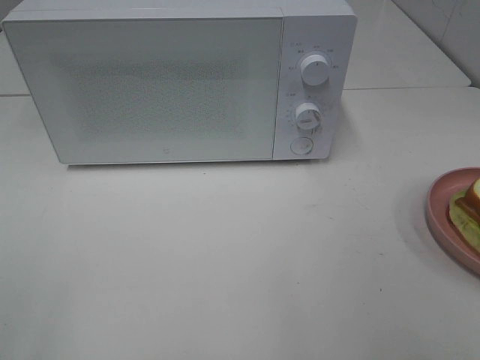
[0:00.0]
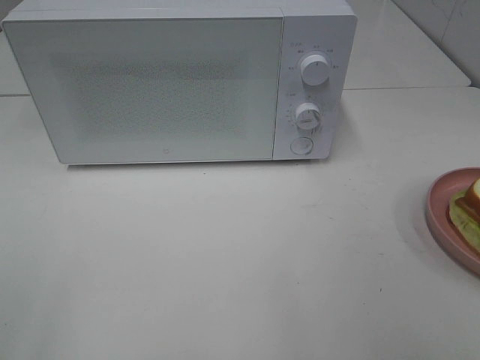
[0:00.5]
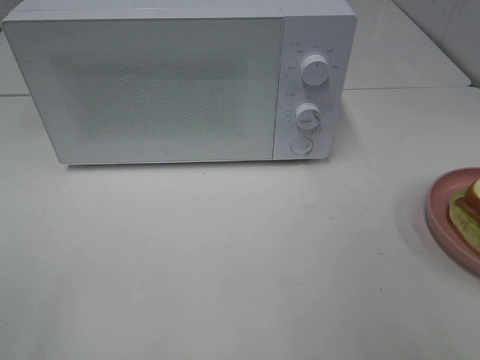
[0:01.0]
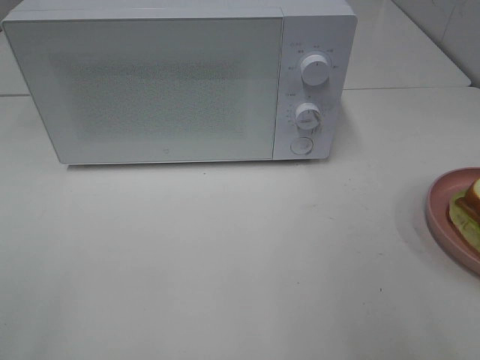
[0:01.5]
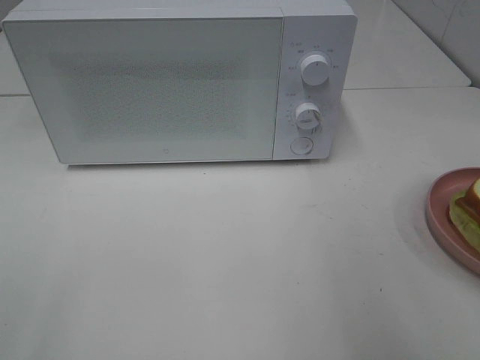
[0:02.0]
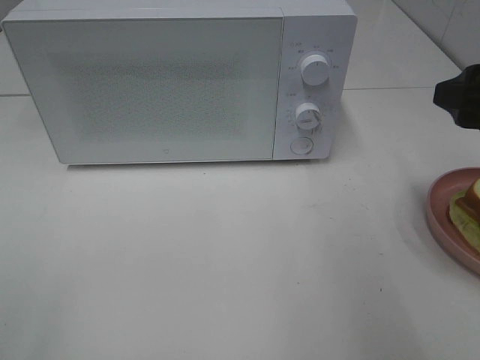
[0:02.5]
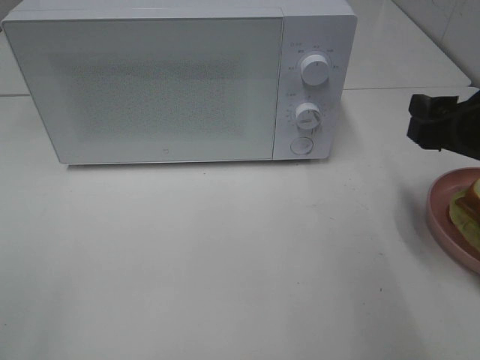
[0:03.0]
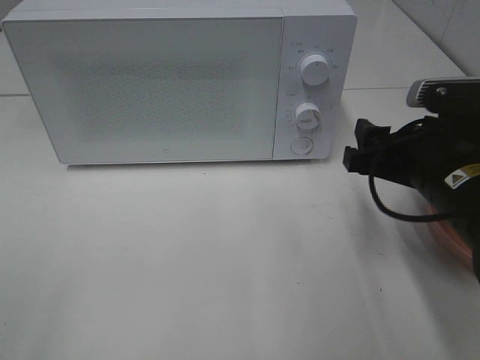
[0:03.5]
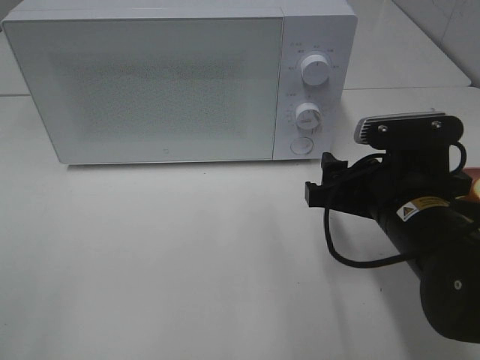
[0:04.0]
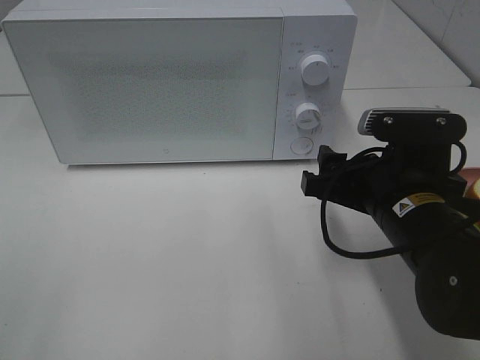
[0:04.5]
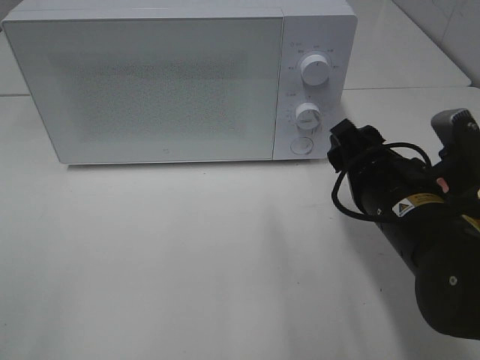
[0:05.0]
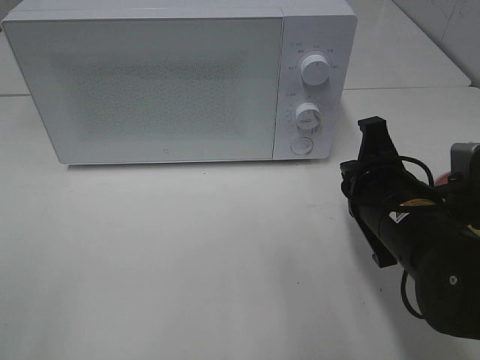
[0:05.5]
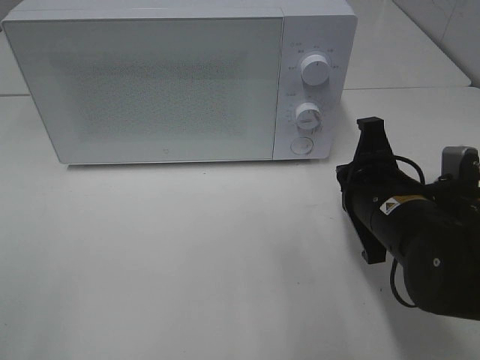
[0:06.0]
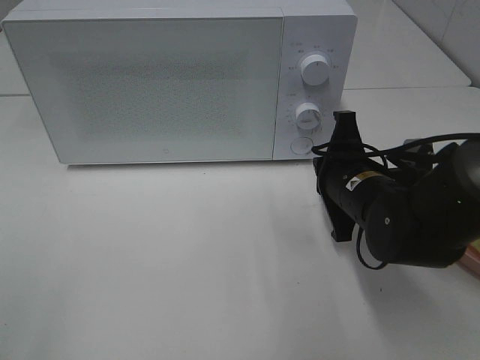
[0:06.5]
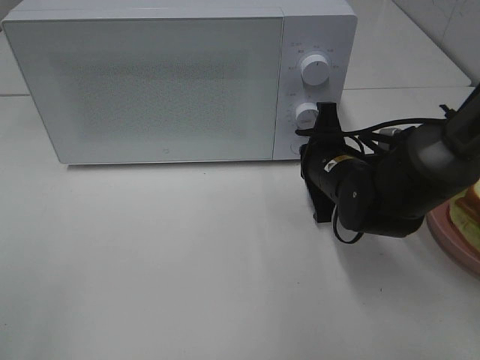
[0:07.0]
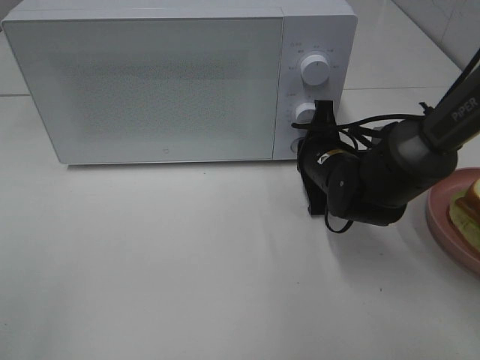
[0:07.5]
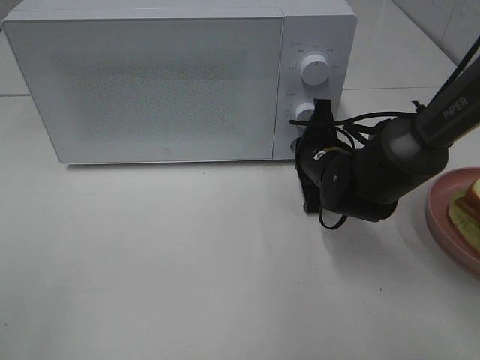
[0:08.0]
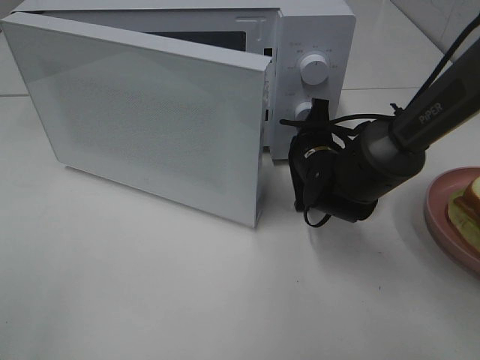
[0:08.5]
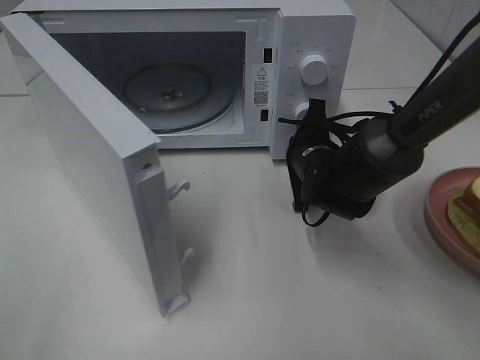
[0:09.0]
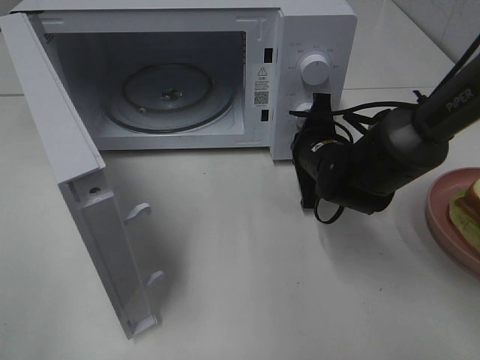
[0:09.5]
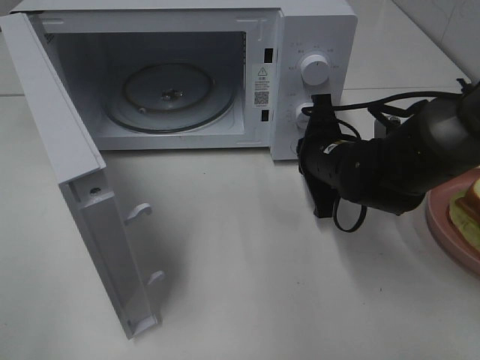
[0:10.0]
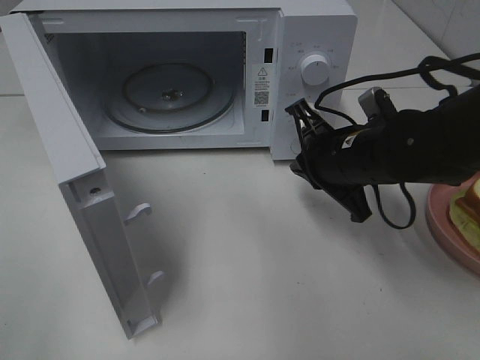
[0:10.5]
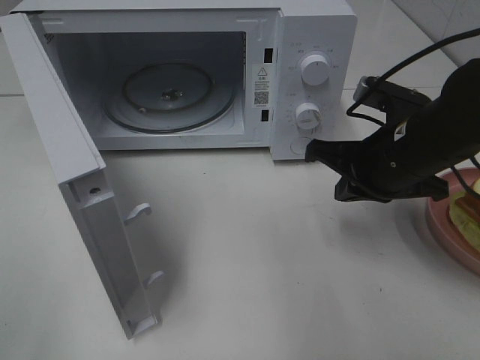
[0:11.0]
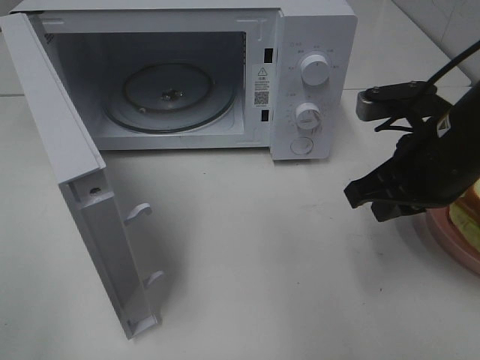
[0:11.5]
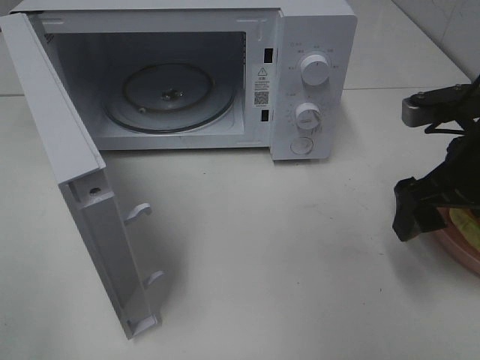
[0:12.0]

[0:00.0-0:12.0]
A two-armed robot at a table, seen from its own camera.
Task of the whole recording: Heat Sandwich.
Step, 0:00.0 to 0:10.0: Right hand: press the switch.
0:02.0 to 0:04.0: The right gripper goes roughly 20 cm downward and to the left.
0:04.0 to 0:06.0: The right gripper closes its fingers.
0:06.0 to 0:08.0: The right gripper goes some 15 cm forward.
0:10.0 to 0:12.0: The right gripper travels to the right, upward and backward by roughly 15 cm, and opens.

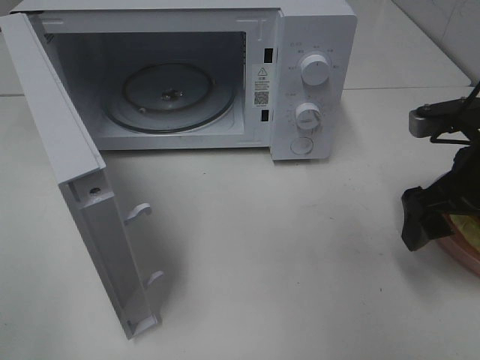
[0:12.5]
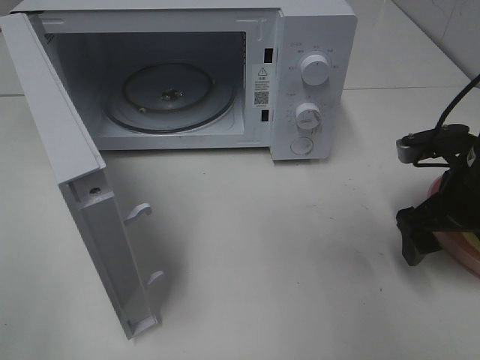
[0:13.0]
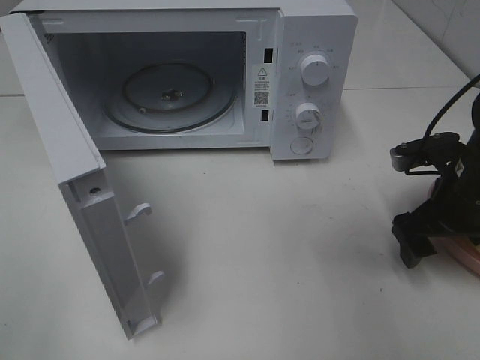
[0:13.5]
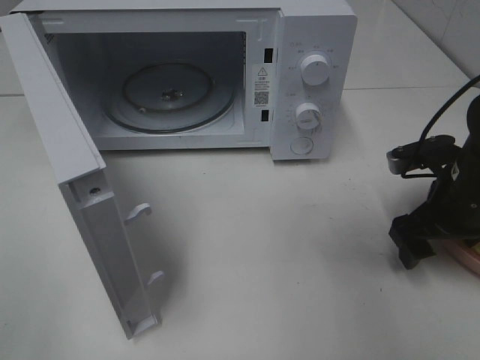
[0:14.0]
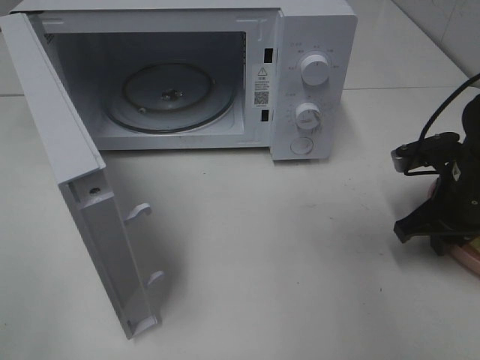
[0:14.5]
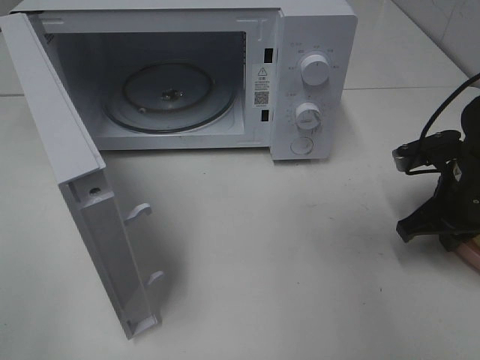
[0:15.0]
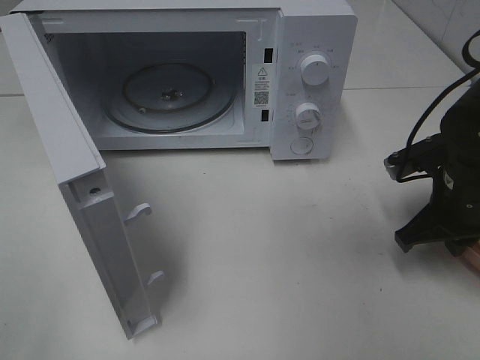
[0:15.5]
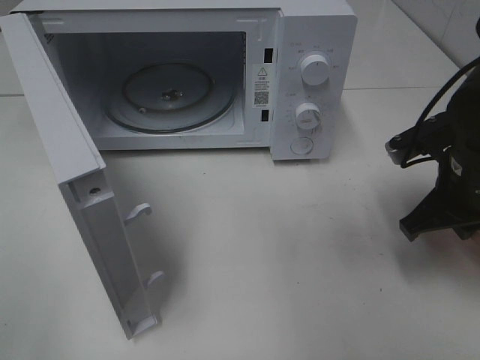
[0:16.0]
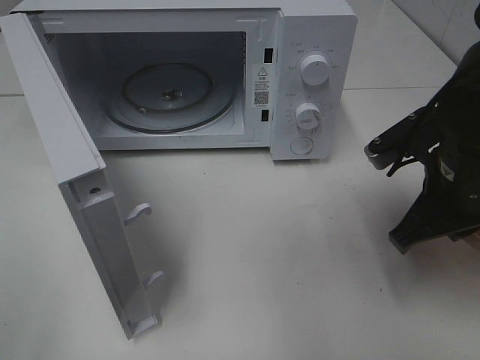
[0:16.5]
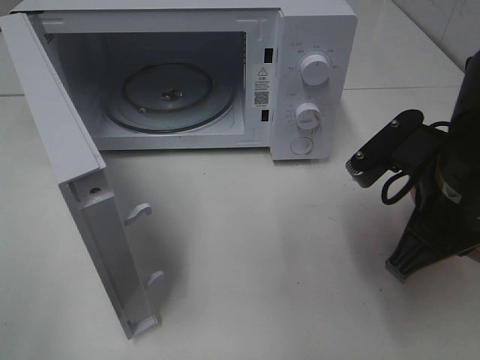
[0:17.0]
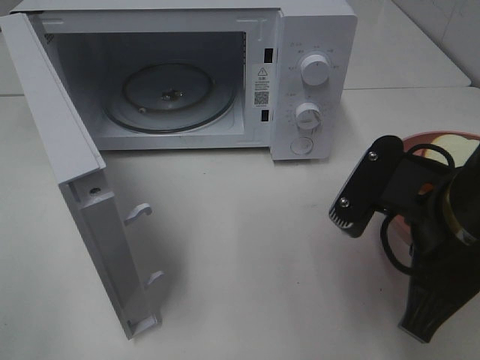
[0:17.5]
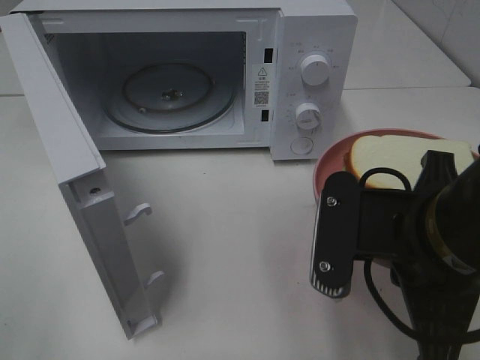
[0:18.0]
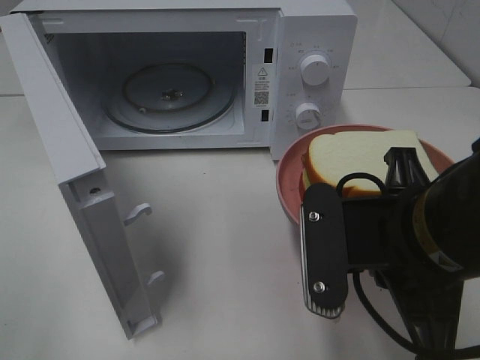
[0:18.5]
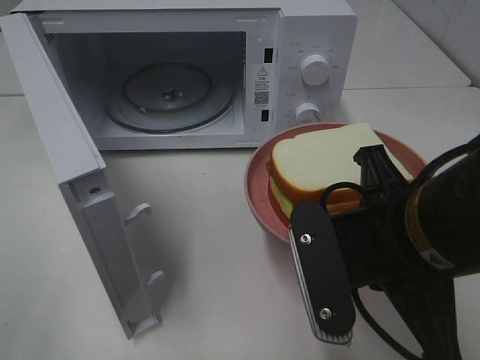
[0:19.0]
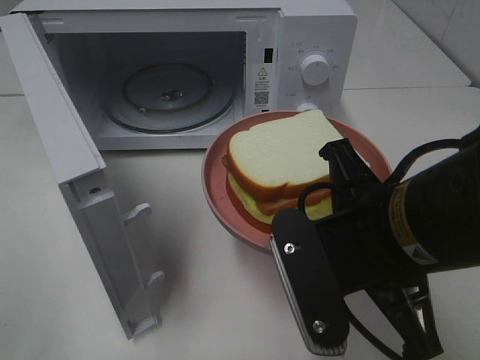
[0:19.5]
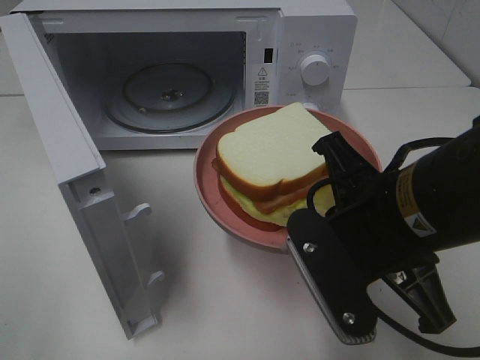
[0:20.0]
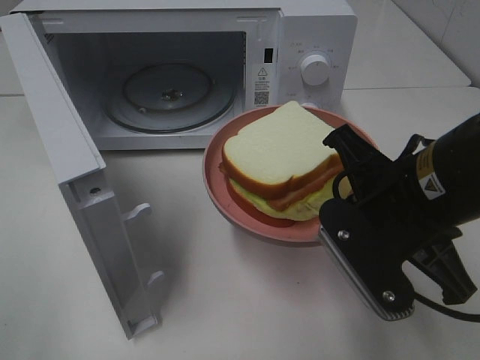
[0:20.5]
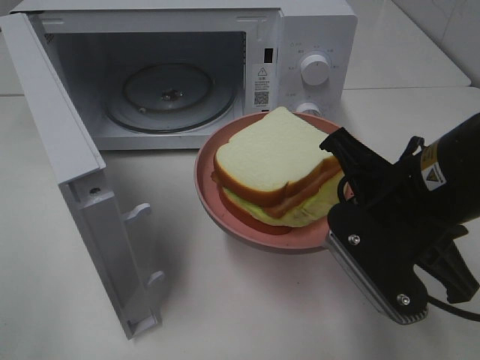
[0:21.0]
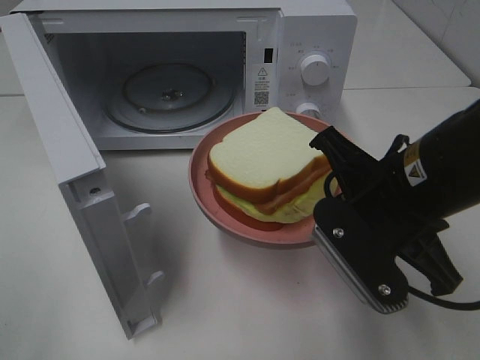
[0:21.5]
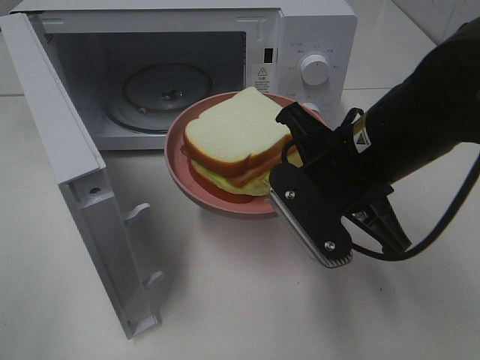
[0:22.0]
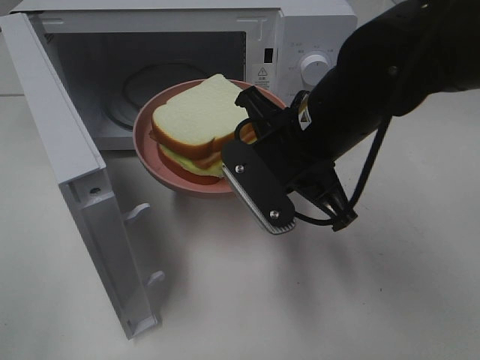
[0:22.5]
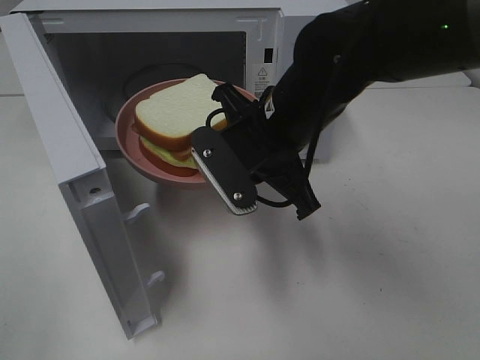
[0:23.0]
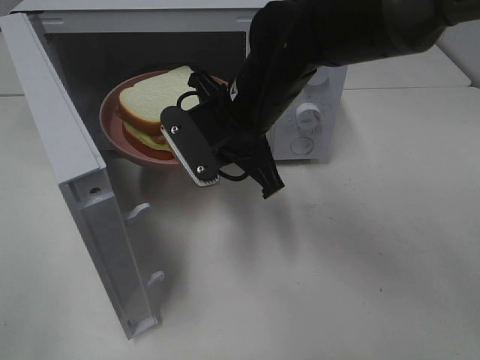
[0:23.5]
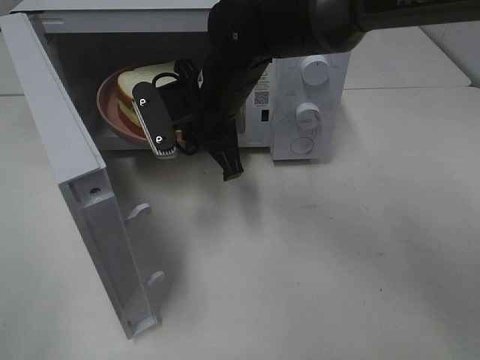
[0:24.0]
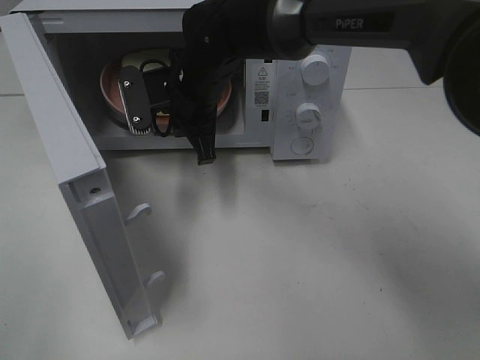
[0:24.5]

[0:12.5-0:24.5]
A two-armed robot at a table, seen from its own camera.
Task of the whole recording: Heat Sandwich.
Step, 0:12.5 to 0:15.0: Right hand: grab the plate with the sandwich.
0:12.5 to 0:14.5: The right gripper travels downward by approximately 5 cm, and closes.
0:14.5 to 0:16.5: The right gripper shifts approximately 10 cm to the left and upward.
0:16.5 to 0:18.5: The right gripper travels backward and to the left by some 15 cm.
0:20.5 to 0:22.5: The right gripper heads forward and to the left, covering about 10 cm.
0:22.5 to 0:24.5: The right gripper travels forward and to the left by about 20 cm.

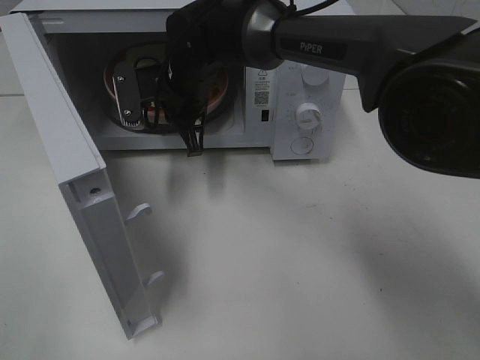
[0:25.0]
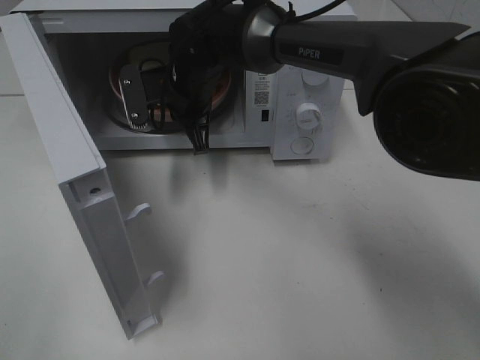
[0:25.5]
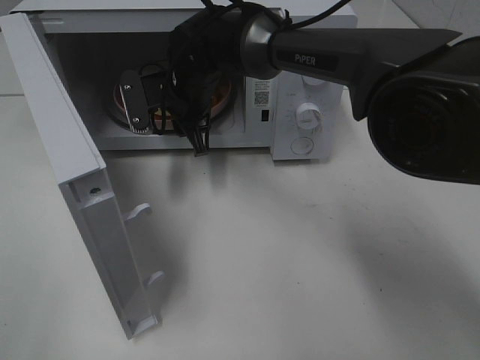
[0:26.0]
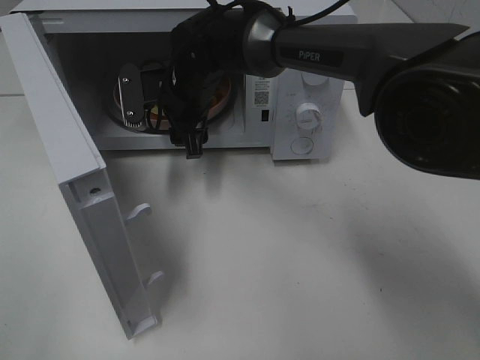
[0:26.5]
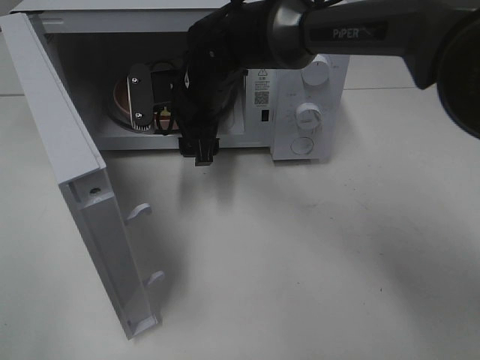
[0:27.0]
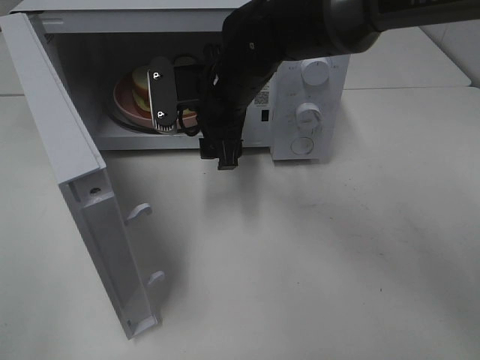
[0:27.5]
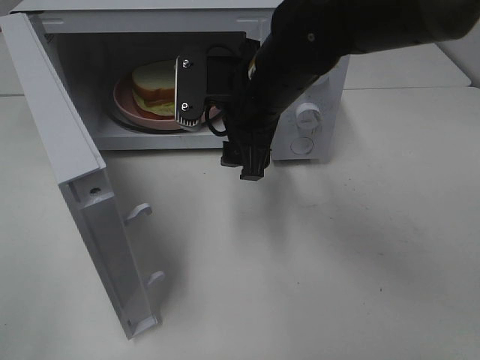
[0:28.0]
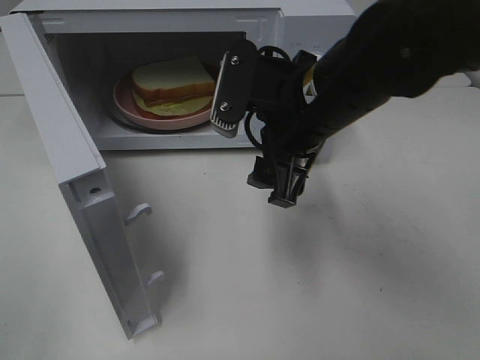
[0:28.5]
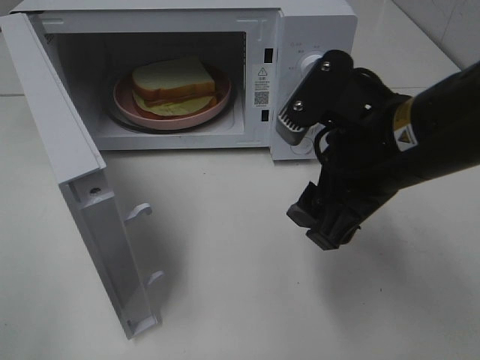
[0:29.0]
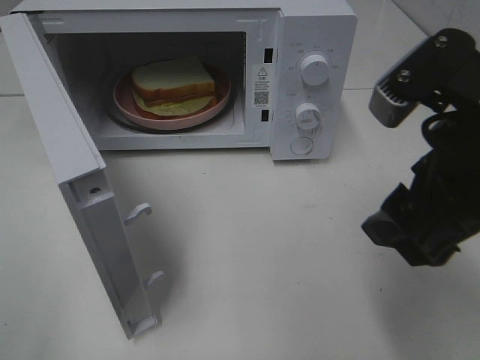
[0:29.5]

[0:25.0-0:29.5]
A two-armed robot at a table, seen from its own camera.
Task of the whole recording: Heat Sandwich.
Step, 0:25.0 to 0:27.0: Right hand: place the plate in the microwave.
0:25.0 to 0:27.0: The right gripper opens.
0:27.0 to 0:29.5: The right gripper travels backward, to the right and upward by some 35 cm.
